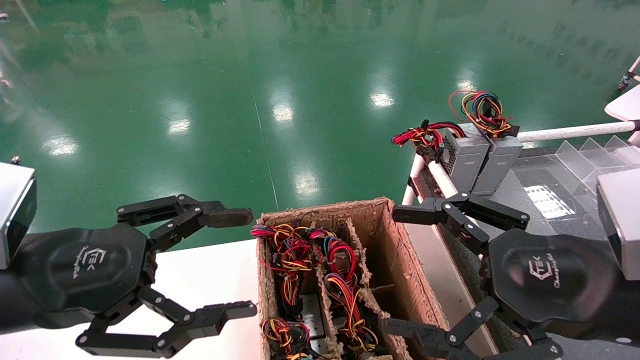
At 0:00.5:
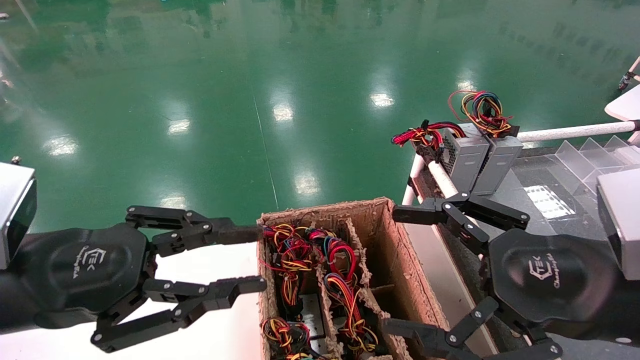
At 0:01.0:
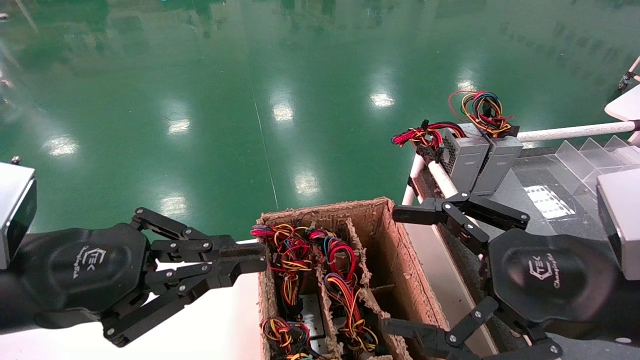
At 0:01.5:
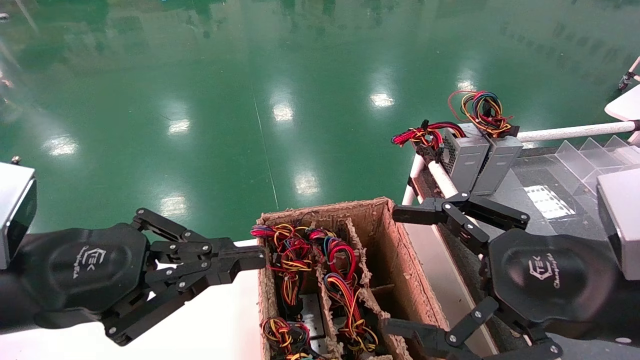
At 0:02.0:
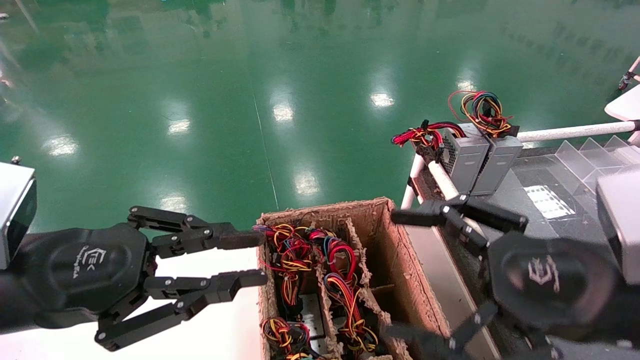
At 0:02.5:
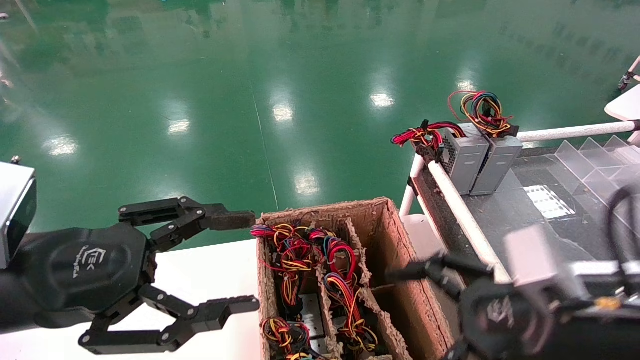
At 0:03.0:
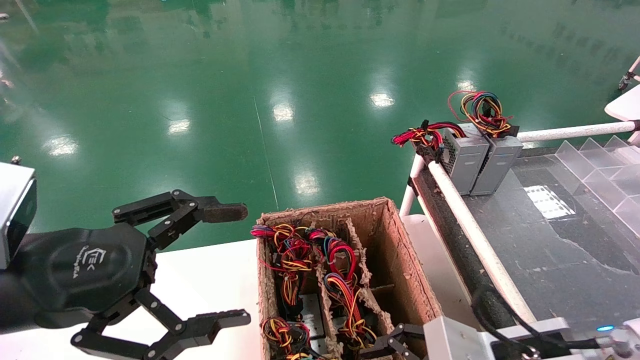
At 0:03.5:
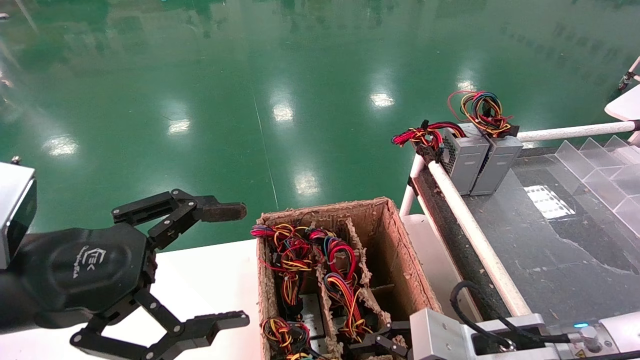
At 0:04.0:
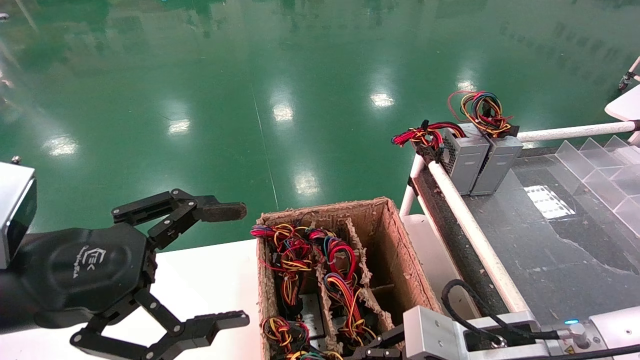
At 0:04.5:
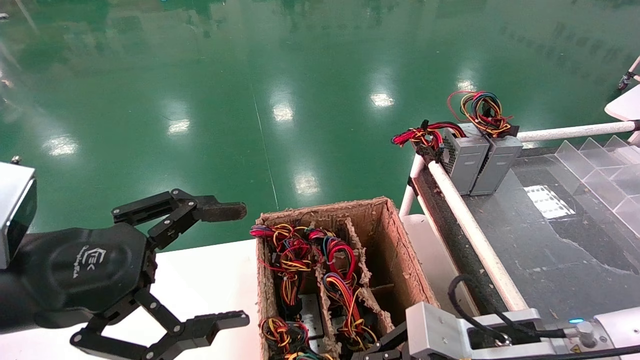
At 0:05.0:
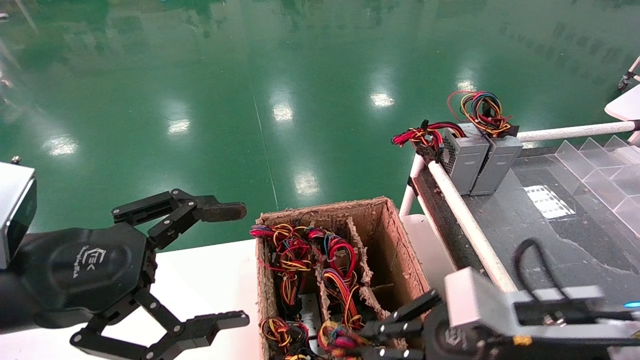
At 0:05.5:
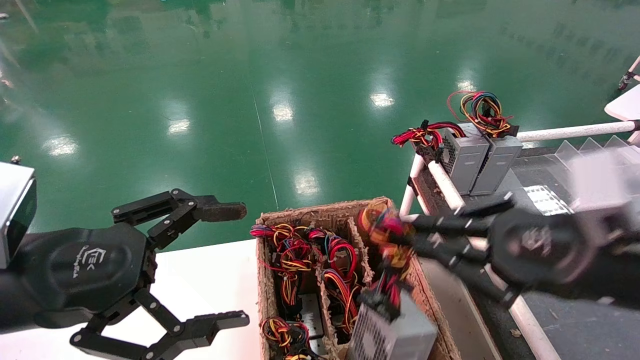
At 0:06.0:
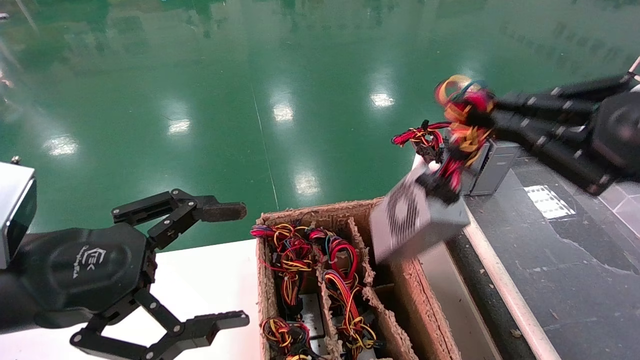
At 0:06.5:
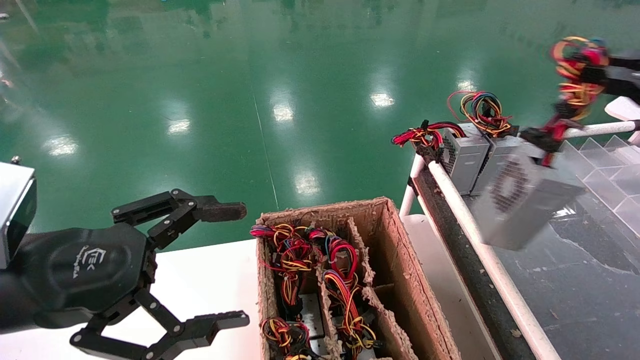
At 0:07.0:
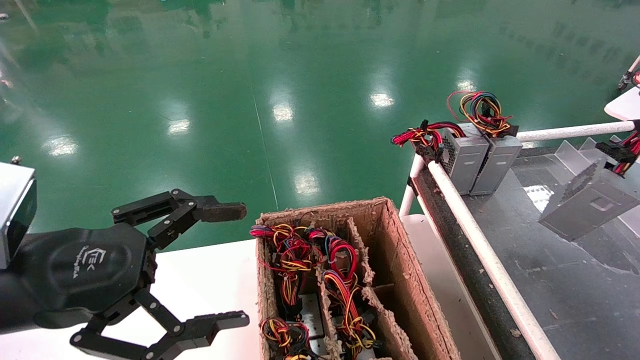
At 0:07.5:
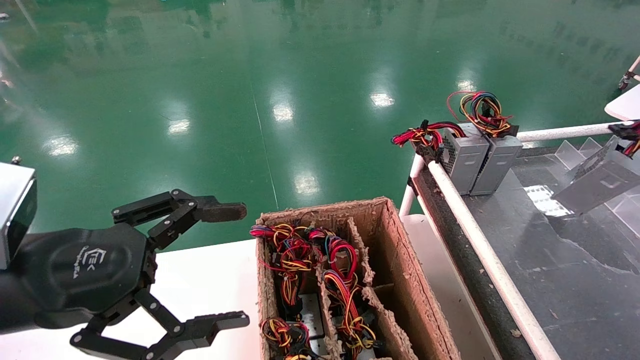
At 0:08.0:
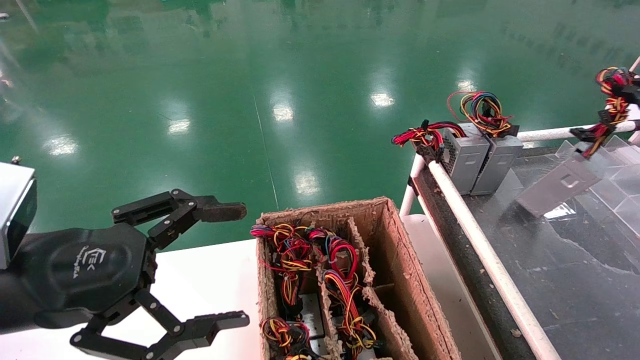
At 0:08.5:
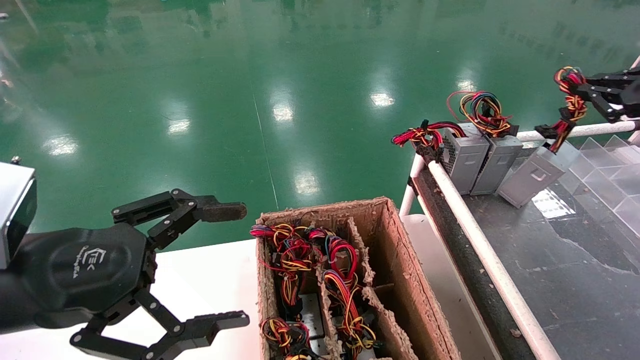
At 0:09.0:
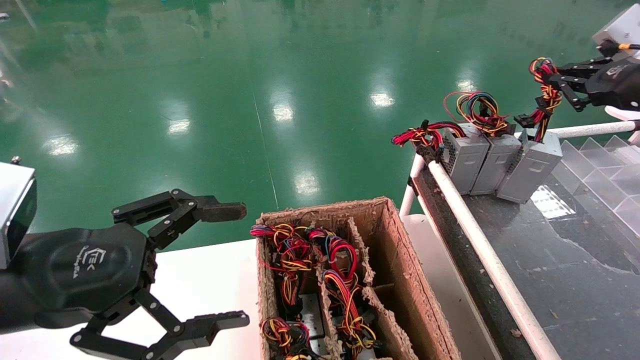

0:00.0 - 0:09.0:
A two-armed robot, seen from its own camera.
Step, 0:01.0 - 0:04.0: Grab and lift the power supply from the large box.
0:00.0 - 0:02.0: The left gripper closes up.
0:02.0 - 0:04.5: The right gripper moves downward, to the left and forward, roughly 15 cm, and closes. Meanwhile the left gripper opens its fingers.
0:04.5 - 0:07.0: The right gripper goes about 40 cm to the right and upward.
0:07.0 - 0:09.0: The right gripper goes approximately 20 cm forward and to the left.

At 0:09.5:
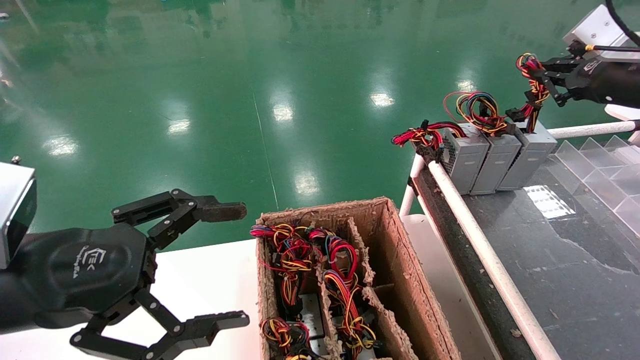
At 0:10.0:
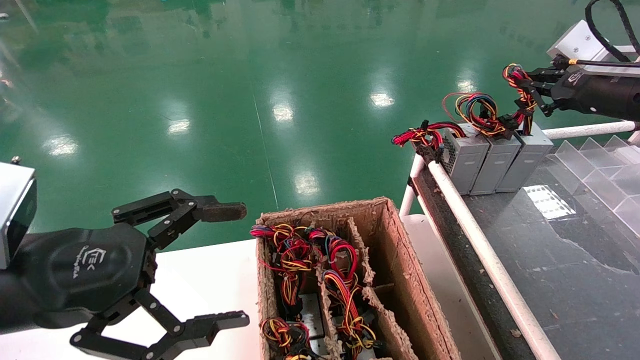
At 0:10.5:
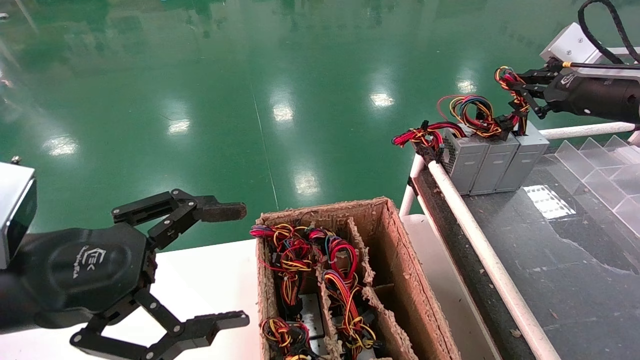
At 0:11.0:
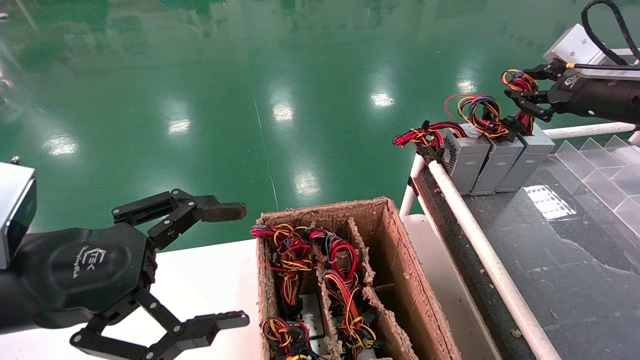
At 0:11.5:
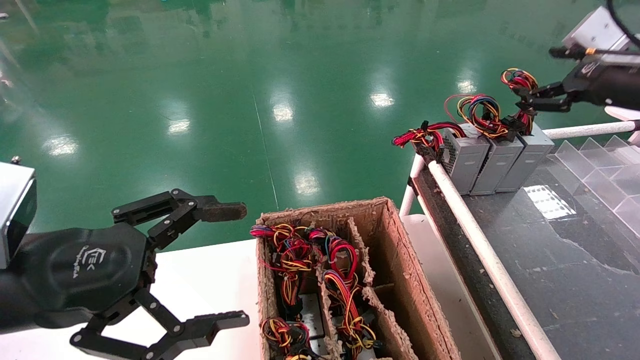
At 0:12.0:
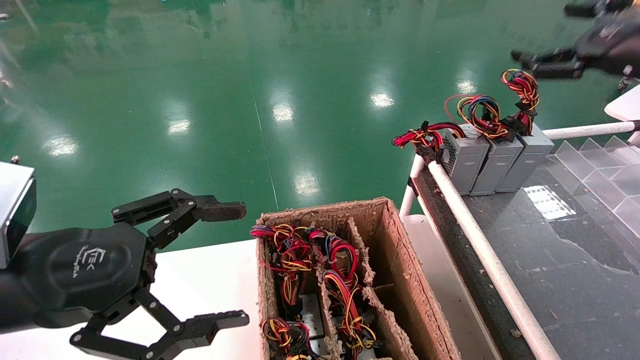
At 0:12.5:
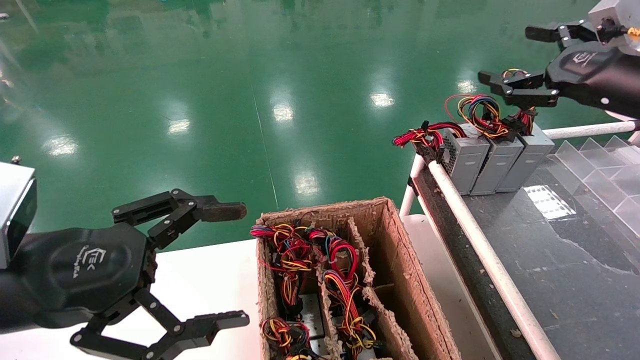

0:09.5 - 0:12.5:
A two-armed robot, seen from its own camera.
0:09.5 - 0:11.0: The grippers stay close to where they were, moving slightly.
0:11.0 - 0:12.5: The right gripper heads backward, covering about 5 cm, and opens up.

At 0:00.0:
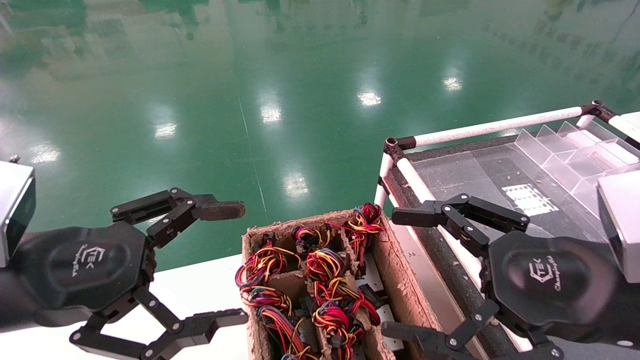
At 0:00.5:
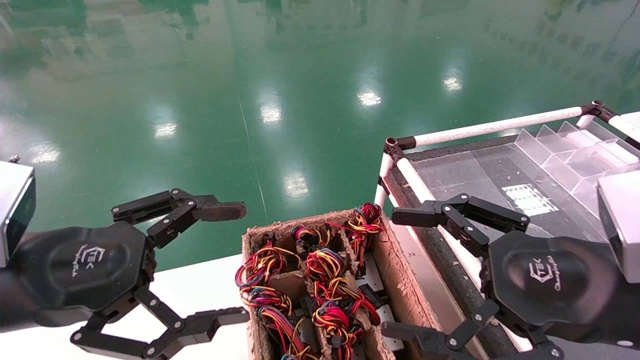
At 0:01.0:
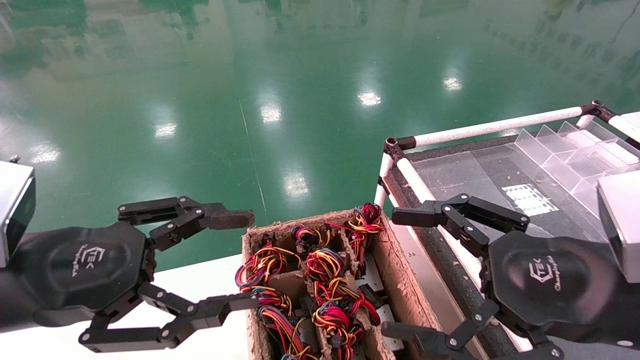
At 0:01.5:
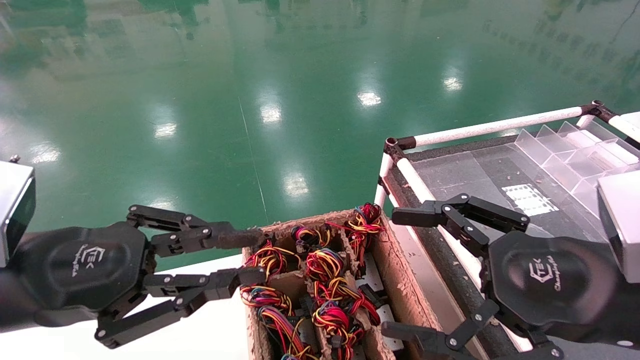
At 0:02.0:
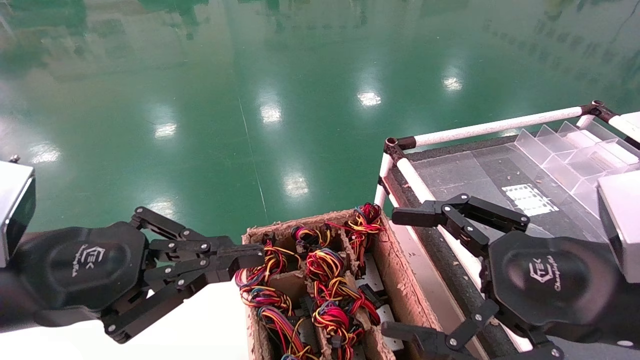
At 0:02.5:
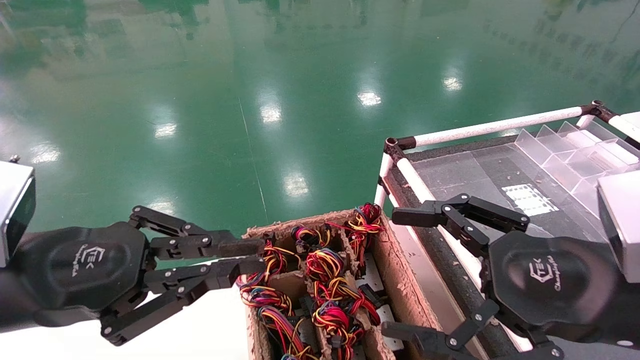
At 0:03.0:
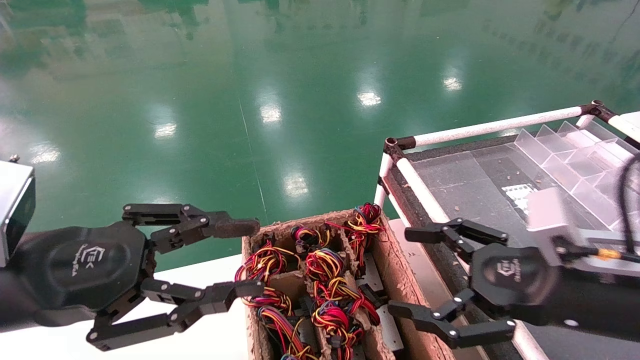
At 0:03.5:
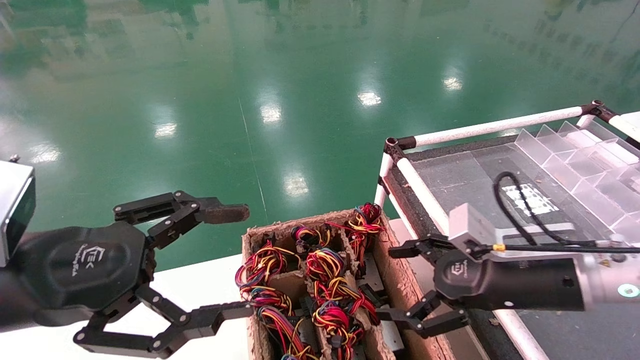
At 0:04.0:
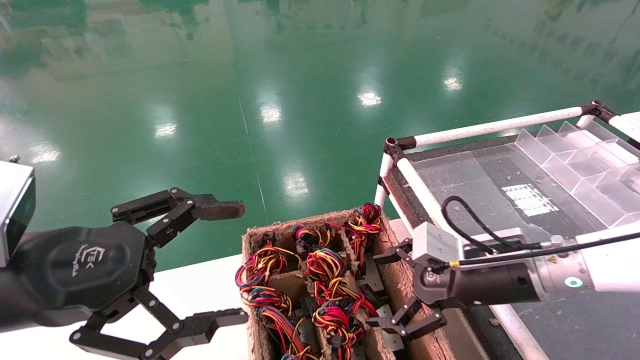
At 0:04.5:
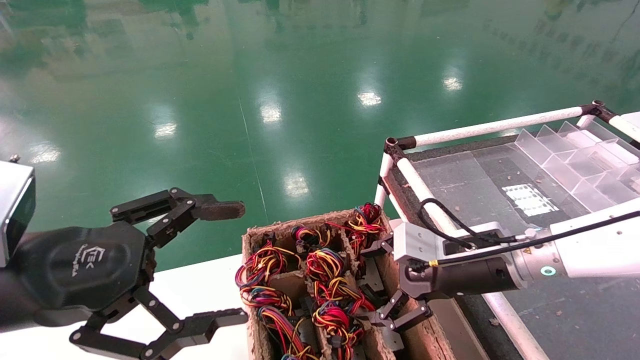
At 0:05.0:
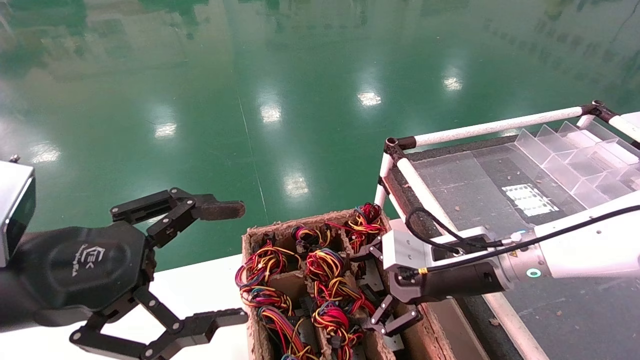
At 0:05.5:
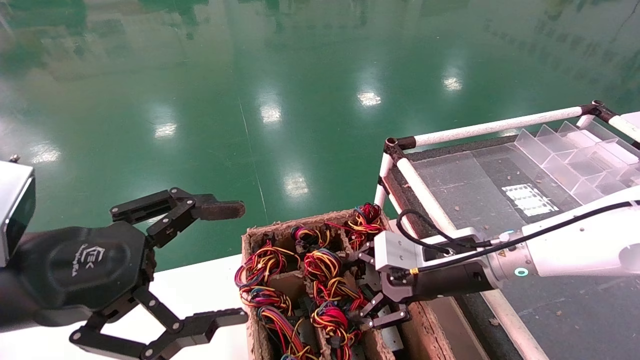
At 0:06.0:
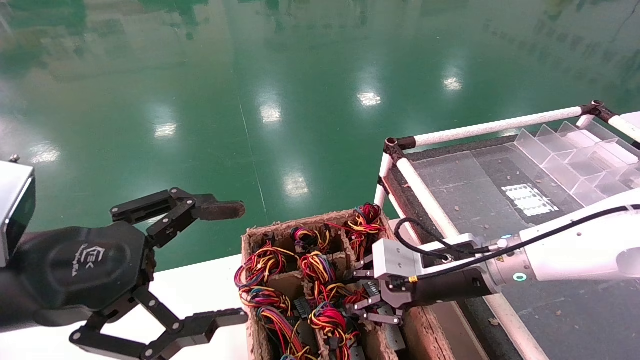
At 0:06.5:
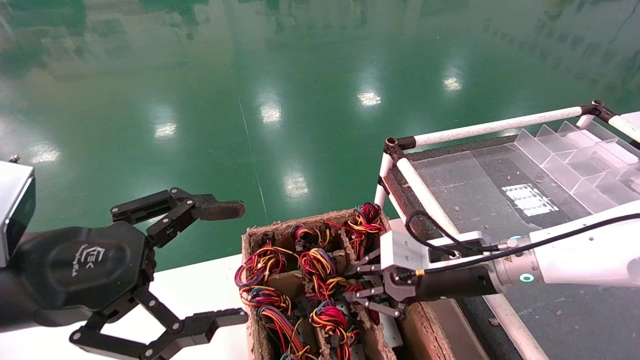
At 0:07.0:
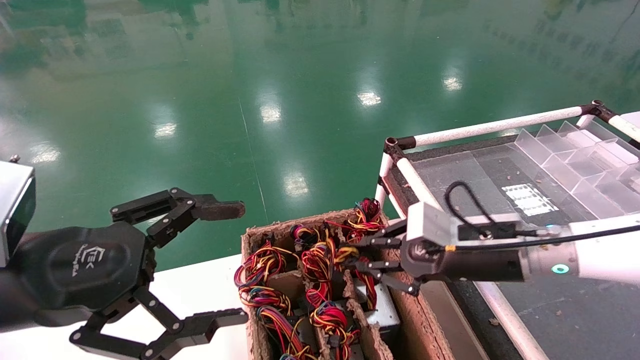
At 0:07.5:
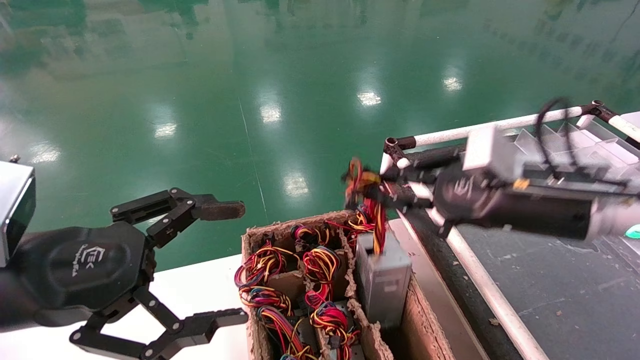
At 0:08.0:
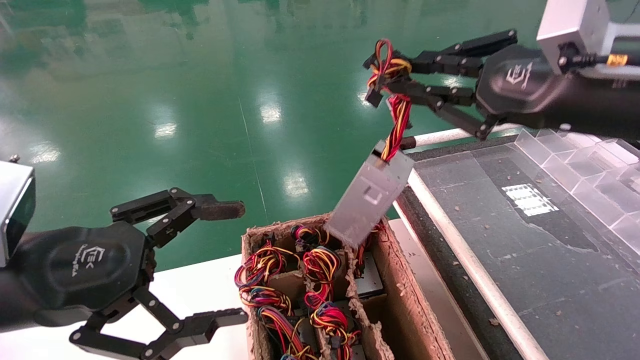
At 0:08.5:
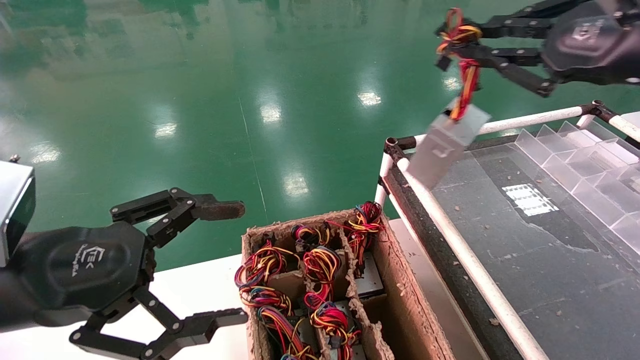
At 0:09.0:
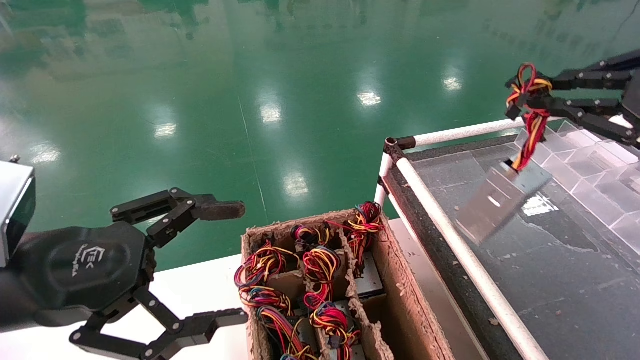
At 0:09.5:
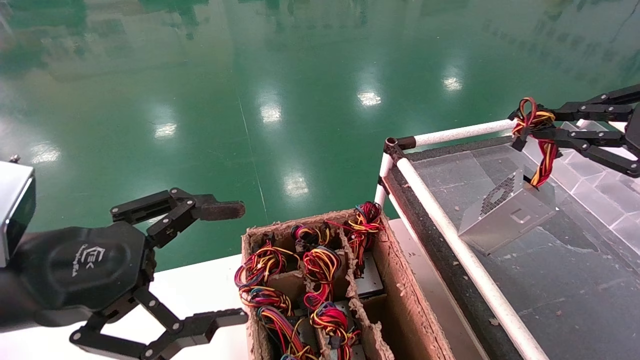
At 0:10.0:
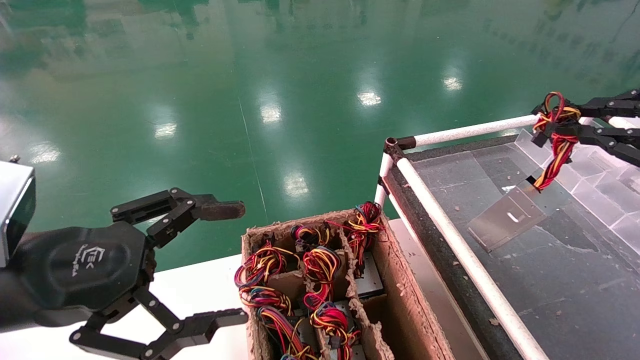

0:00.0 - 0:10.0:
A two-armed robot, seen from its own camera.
Step, 0:02.5 - 0:06.0: Grab and lift the power supply from the large box.
0:00.0 - 0:02.0: The left gripper closes.
0:02.0 - 0:04.0: The left gripper opens; the right gripper is displaced forward and downward by about 15 cm.
0:04.0 - 0:06.0: The right gripper moves some 5 cm, and closes its fingers.
0:06.0 - 0:08.0: The right gripper is displaced upward and to the right by about 25 cm.
0:08.0 - 0:10.0: The right gripper is displaced to the right by some 15 cm.
